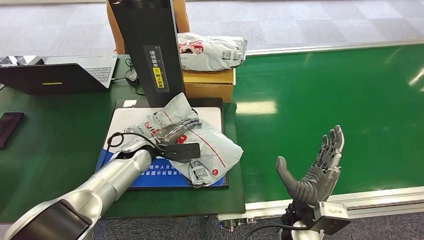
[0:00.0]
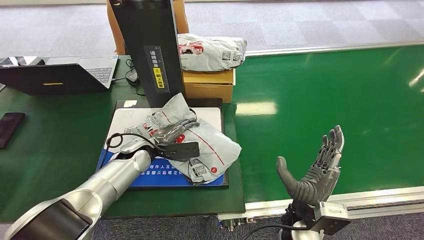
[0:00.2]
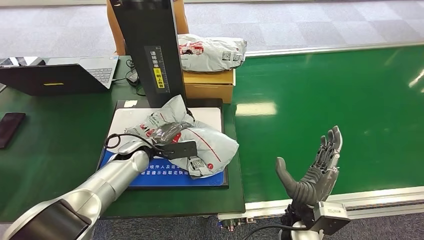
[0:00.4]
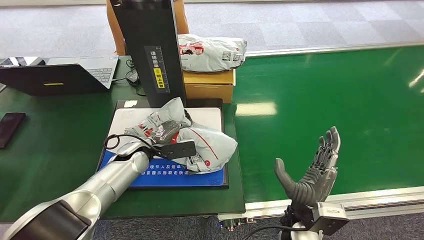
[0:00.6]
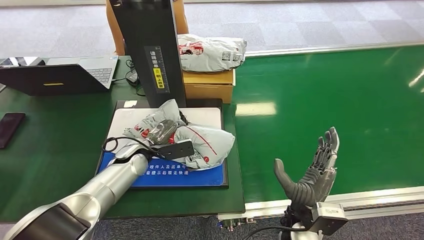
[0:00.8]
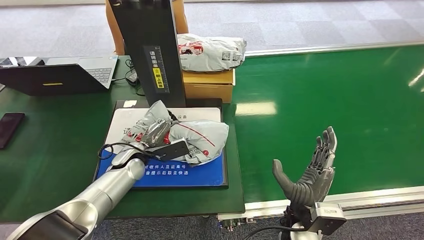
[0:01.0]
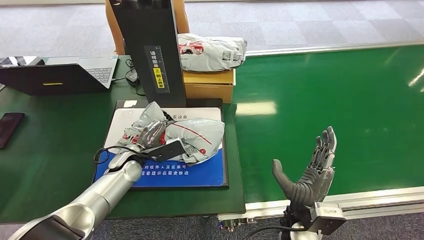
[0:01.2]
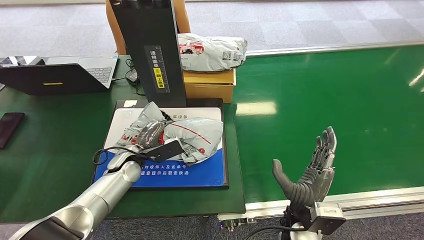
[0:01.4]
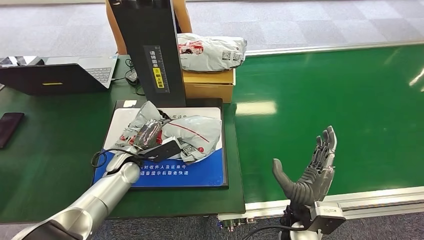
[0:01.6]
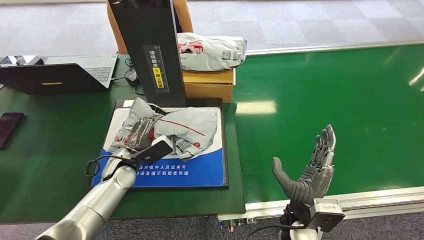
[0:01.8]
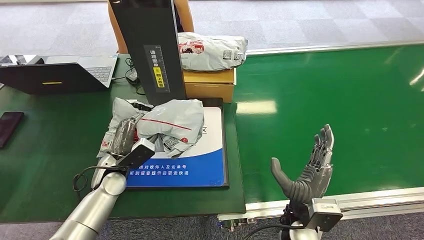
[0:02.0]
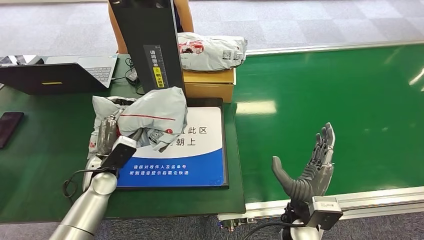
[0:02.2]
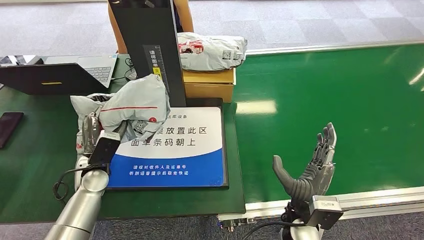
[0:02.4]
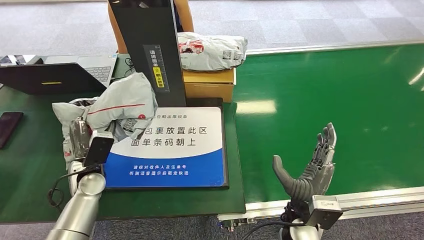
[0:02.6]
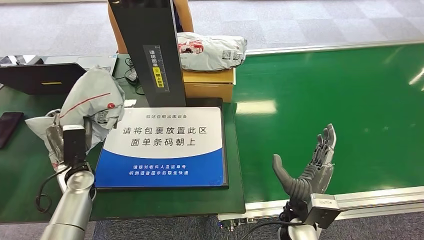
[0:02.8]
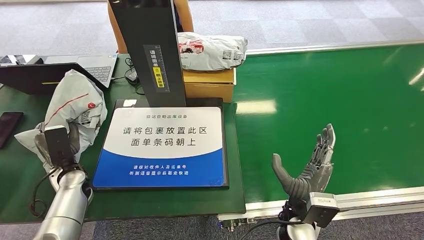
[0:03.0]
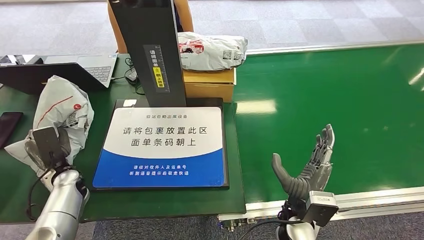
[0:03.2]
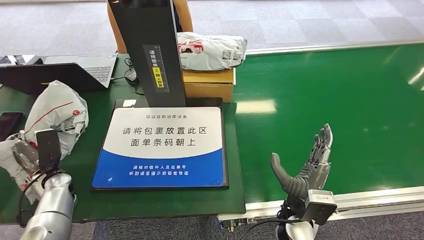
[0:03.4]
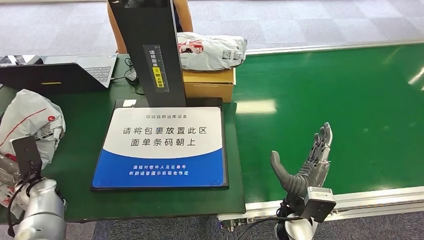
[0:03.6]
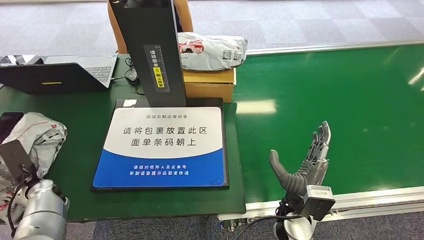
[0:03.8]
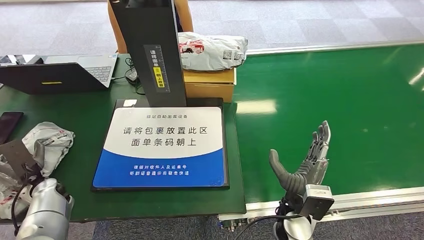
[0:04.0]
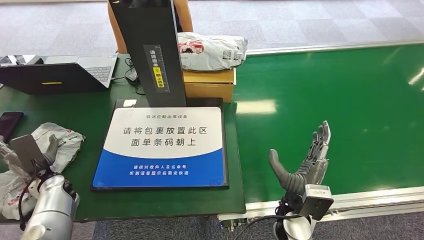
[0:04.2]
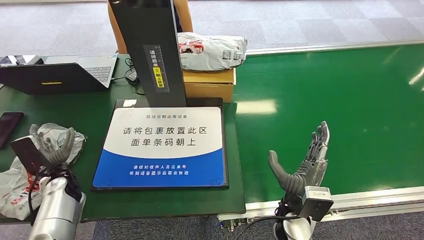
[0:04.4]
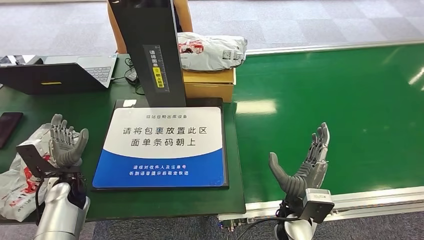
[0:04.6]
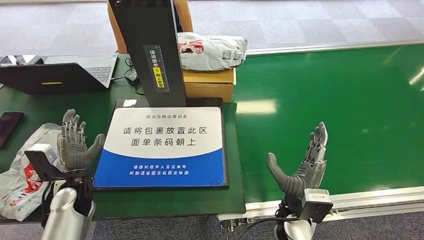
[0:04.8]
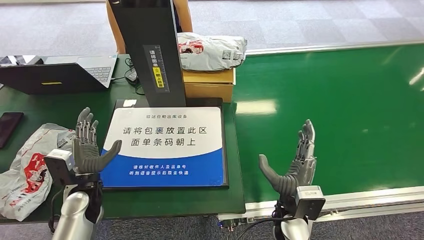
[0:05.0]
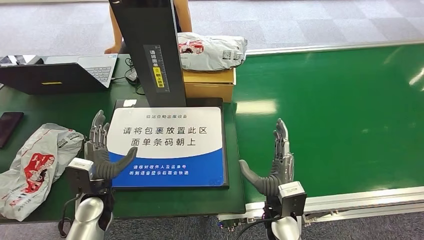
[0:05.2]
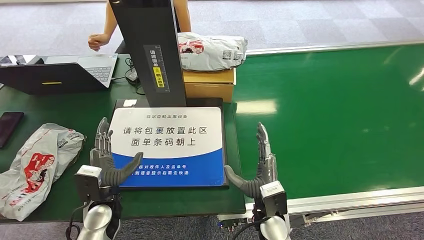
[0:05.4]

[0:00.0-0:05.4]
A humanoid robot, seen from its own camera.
Step, 0:00.0 to 0:02.2: Pick up the package from the inbound machine.
Step, 0:02.4 to 0:05.4: Place the package into the parcel locker.
0:02.8 to 0:04.0: The left hand goes approximately 10 cm to the left.
0:04.0 to 0:05.4: The right hand moves to the left, some 5 cm. Meanwhile the left hand goes about 20 cm to the right.
